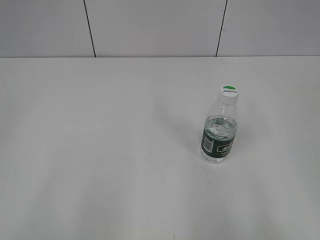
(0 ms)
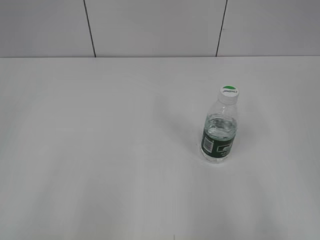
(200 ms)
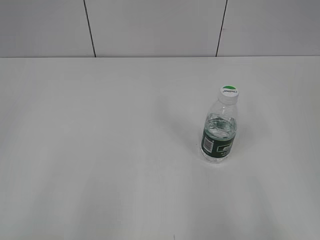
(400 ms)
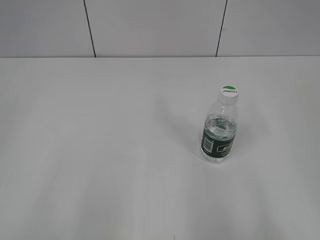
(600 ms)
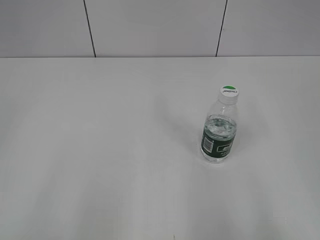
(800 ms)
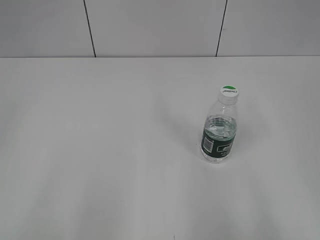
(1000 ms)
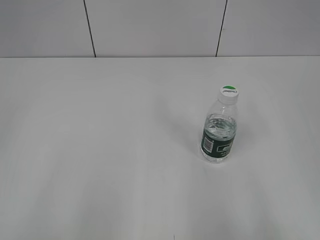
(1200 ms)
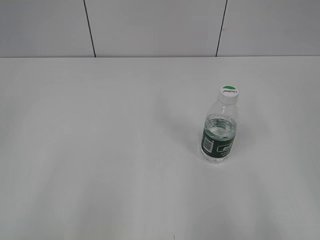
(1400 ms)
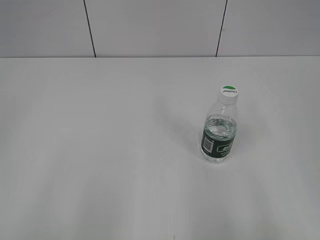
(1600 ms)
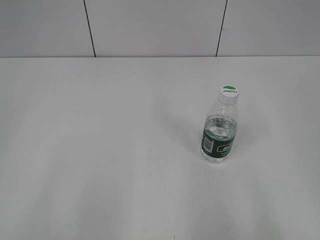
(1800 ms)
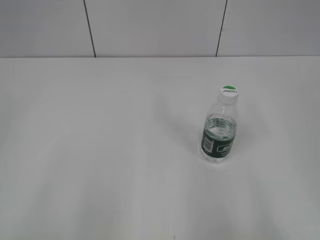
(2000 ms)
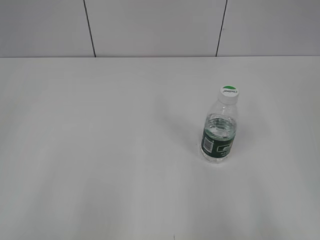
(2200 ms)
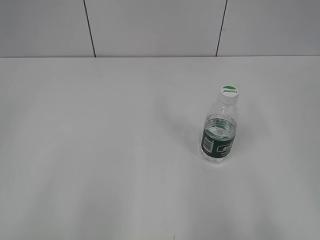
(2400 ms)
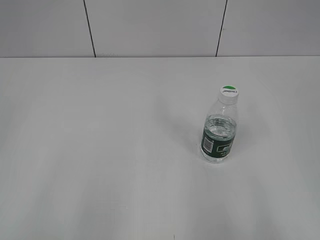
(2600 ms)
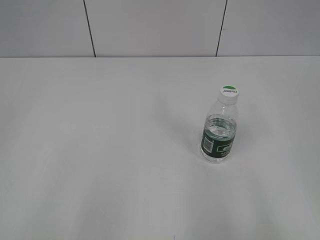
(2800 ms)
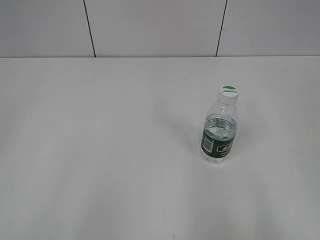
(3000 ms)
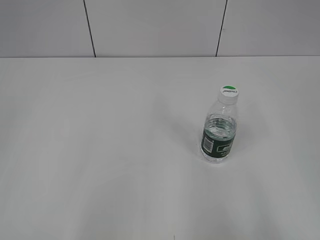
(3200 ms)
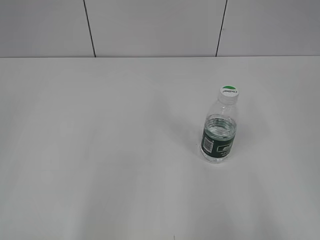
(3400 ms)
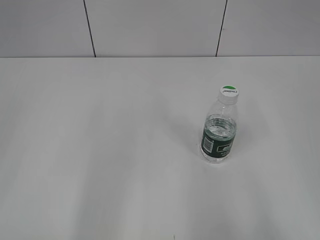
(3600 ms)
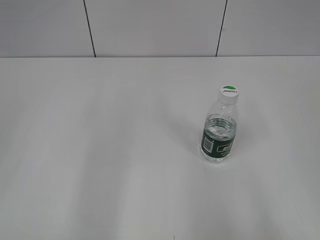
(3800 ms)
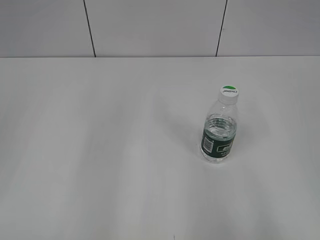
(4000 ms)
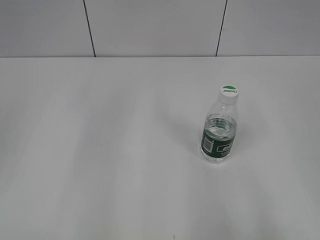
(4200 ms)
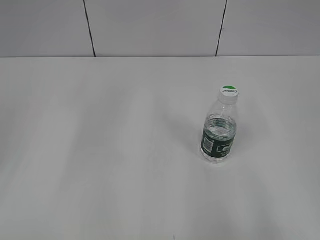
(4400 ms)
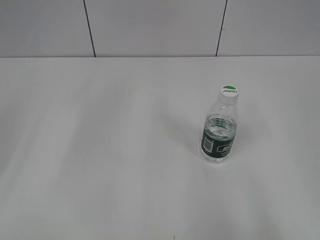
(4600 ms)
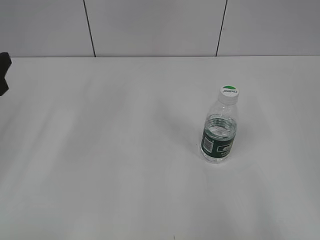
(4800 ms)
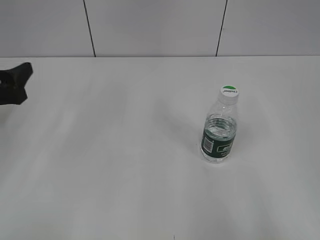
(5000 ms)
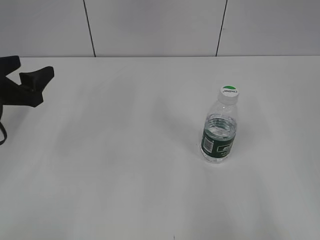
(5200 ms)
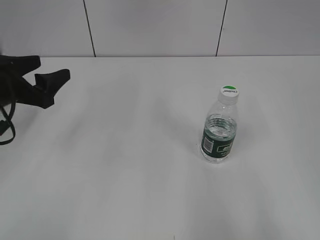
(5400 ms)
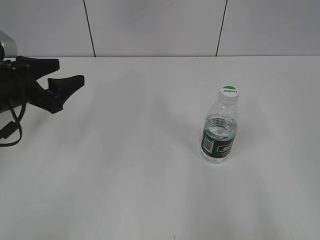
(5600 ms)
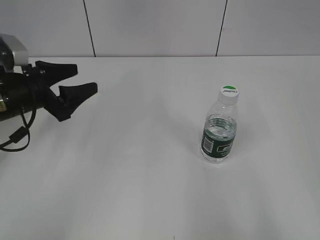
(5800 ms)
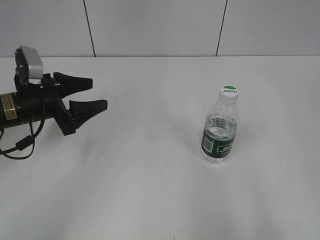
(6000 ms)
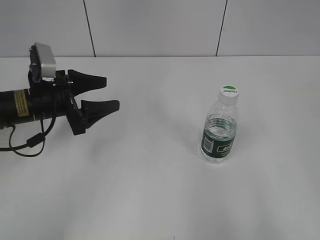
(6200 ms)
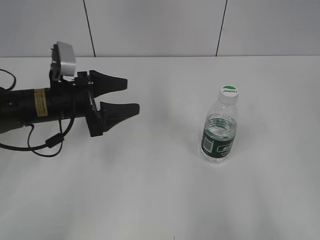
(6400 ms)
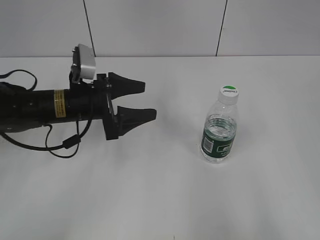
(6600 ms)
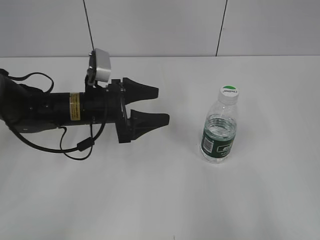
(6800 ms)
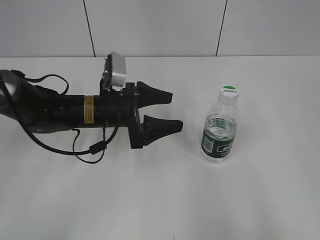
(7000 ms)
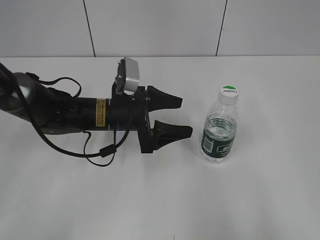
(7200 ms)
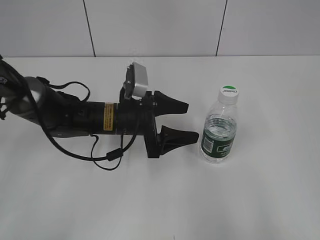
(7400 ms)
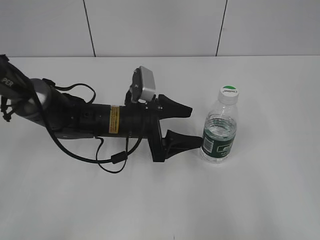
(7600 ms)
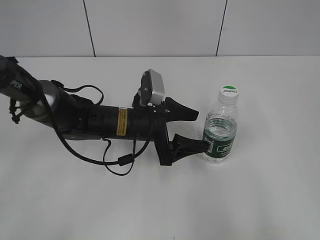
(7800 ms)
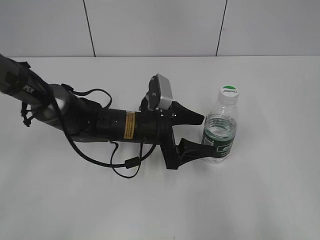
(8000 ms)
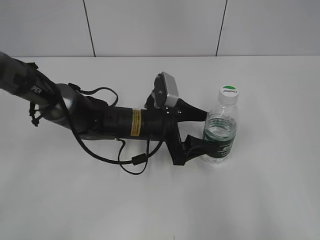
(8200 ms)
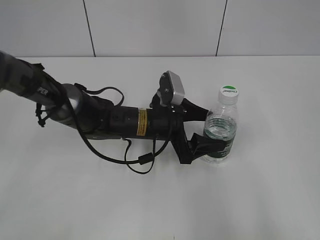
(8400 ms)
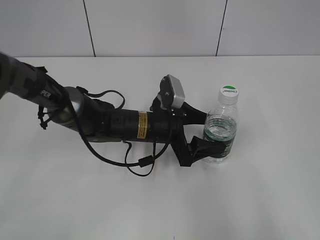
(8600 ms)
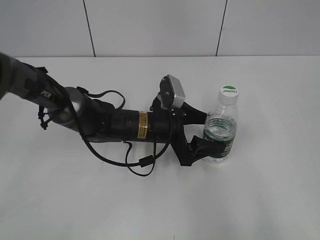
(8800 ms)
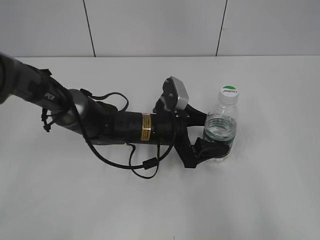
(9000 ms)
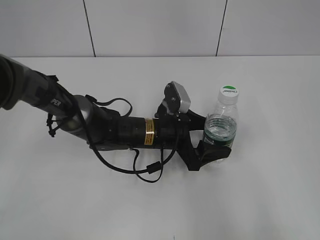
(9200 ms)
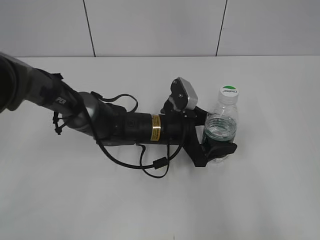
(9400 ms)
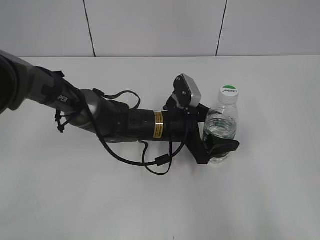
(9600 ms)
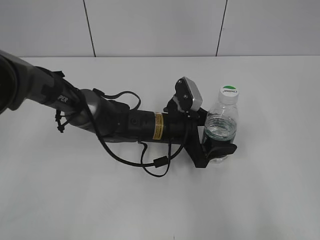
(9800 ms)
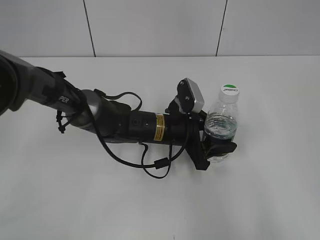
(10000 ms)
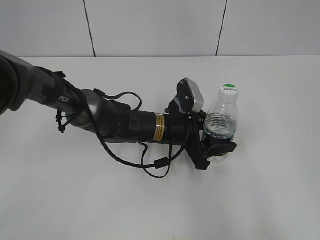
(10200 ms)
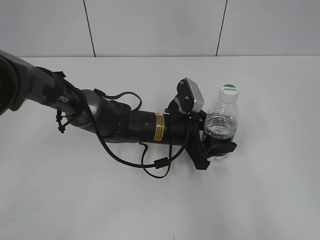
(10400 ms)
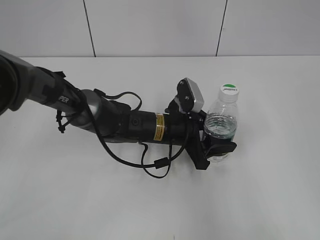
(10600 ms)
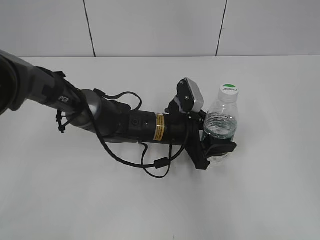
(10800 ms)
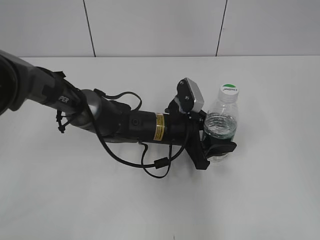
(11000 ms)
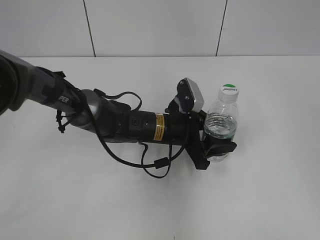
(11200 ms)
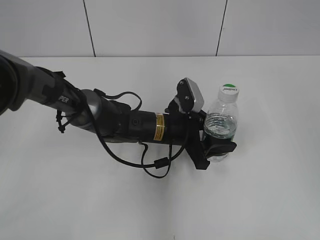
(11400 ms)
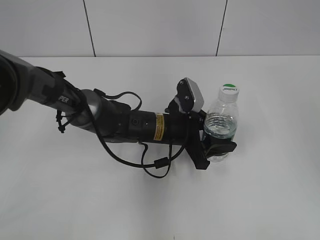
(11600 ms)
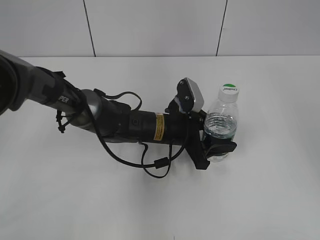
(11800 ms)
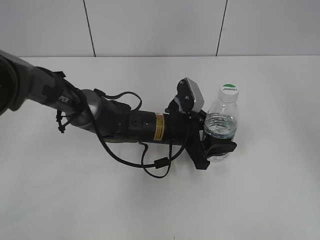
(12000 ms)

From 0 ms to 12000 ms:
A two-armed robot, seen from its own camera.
Step, from 0 ms to 10600 ms: Grasp the bottle and move it to the center of the table with the left gripper.
From 4400 ms to 6000 ms: The left gripper travels forward, downward and to the right by some 20 cm.
From 6000 ms to 7600 ms: The left gripper shifts some 15 cm to the right.
From 7600 ms to 9000 ms: The left gripper goes some 5 cm to the right.
From 9000 ms to 10400 ms: The left gripper closes.
From 10400 ms to 12000 ms: The right gripper travels forward and upward by some 30 cm.

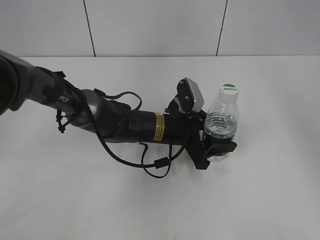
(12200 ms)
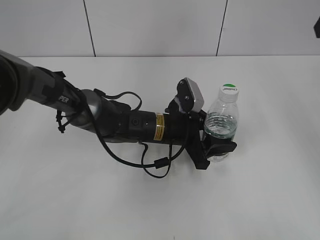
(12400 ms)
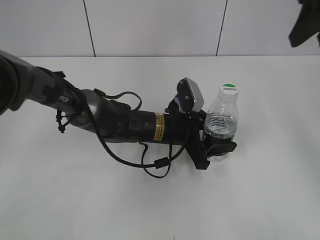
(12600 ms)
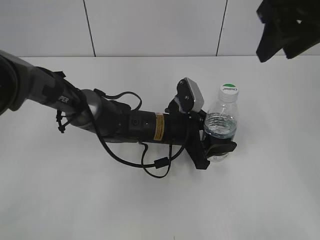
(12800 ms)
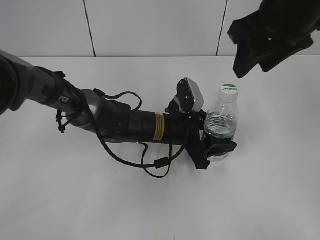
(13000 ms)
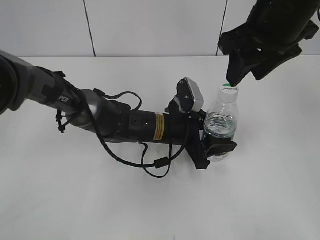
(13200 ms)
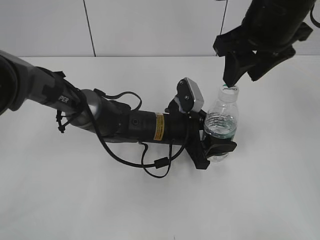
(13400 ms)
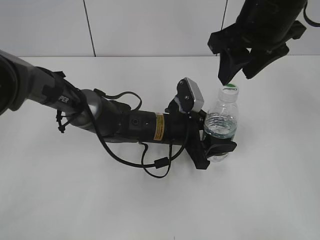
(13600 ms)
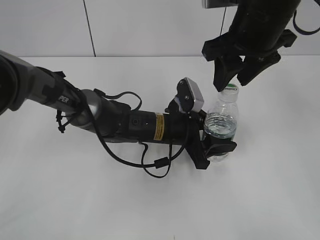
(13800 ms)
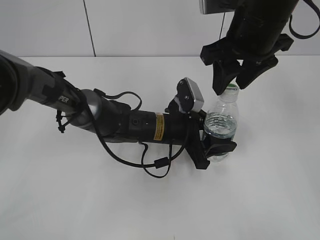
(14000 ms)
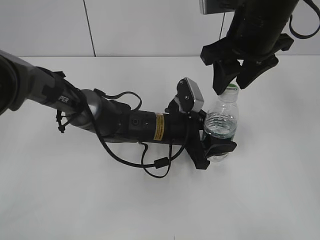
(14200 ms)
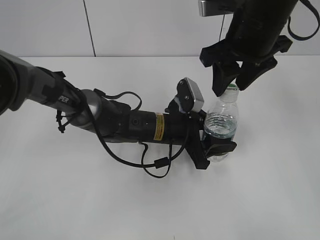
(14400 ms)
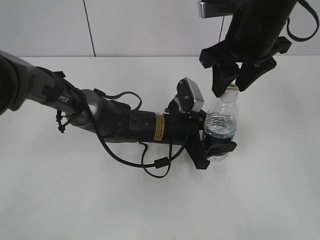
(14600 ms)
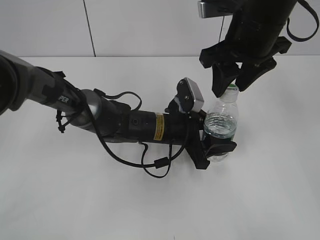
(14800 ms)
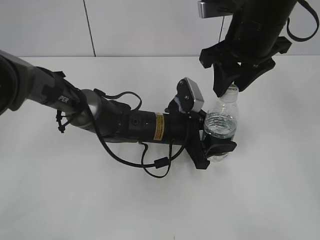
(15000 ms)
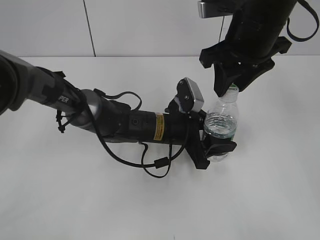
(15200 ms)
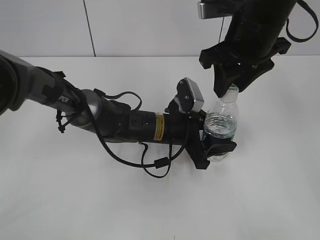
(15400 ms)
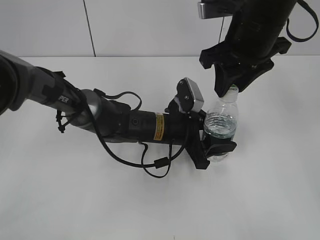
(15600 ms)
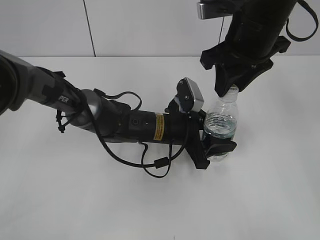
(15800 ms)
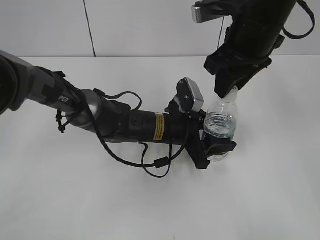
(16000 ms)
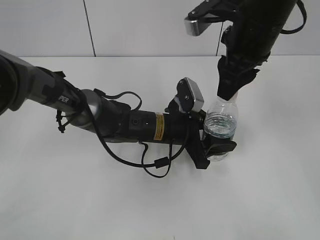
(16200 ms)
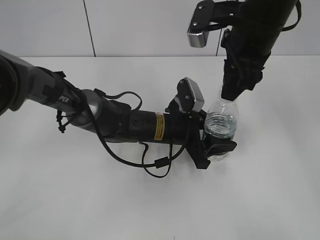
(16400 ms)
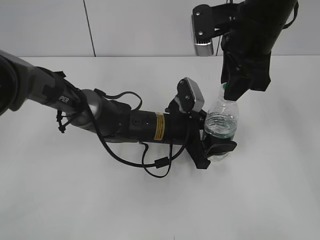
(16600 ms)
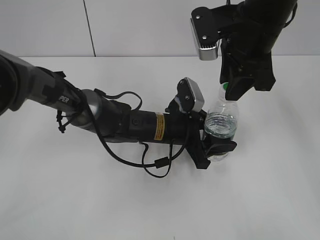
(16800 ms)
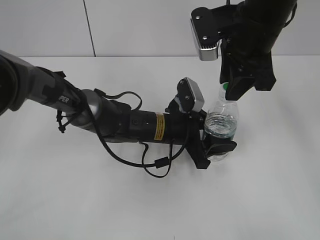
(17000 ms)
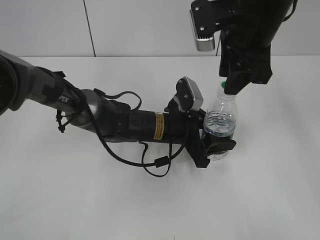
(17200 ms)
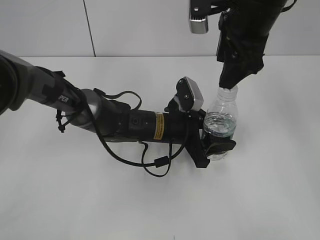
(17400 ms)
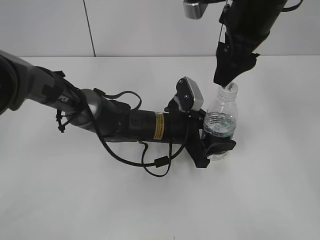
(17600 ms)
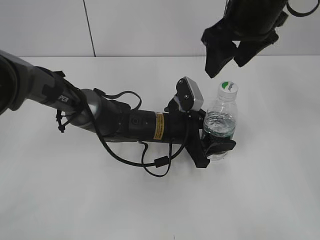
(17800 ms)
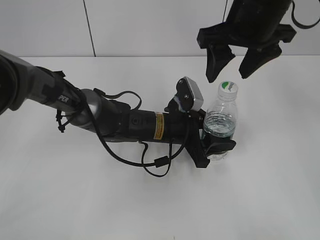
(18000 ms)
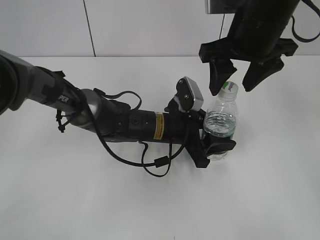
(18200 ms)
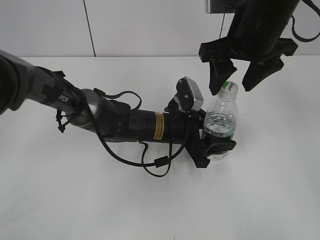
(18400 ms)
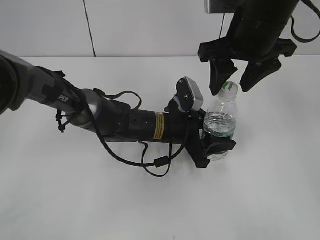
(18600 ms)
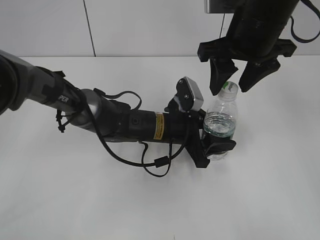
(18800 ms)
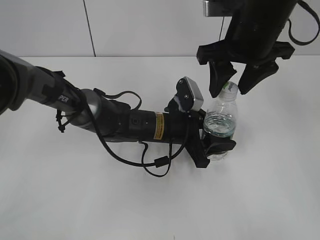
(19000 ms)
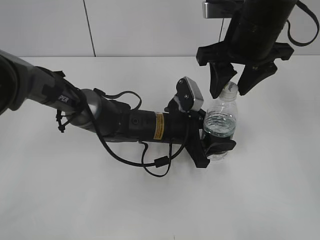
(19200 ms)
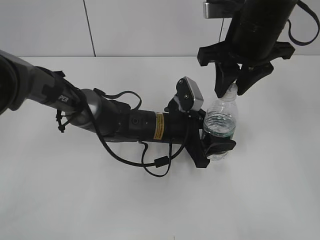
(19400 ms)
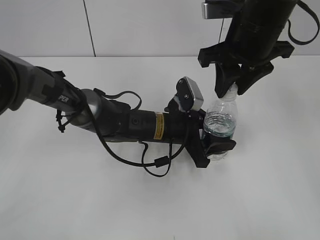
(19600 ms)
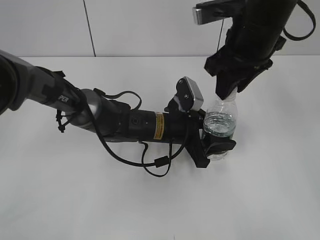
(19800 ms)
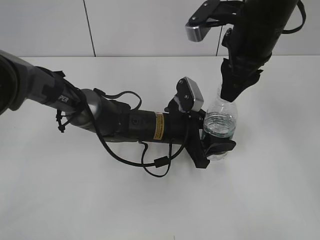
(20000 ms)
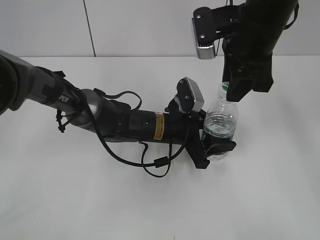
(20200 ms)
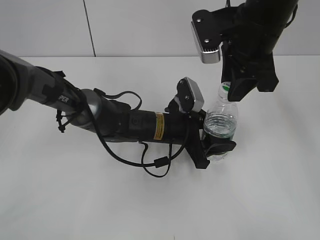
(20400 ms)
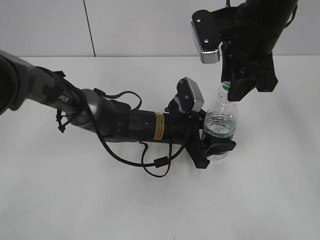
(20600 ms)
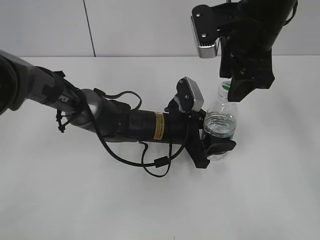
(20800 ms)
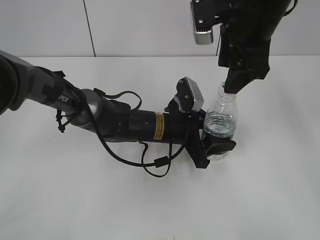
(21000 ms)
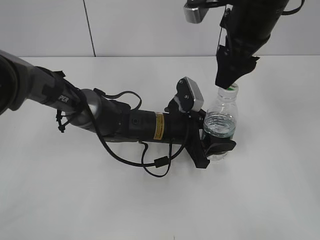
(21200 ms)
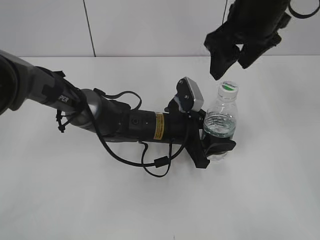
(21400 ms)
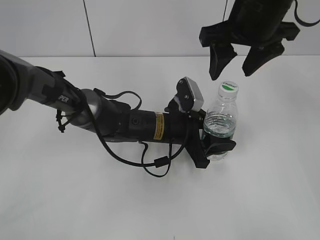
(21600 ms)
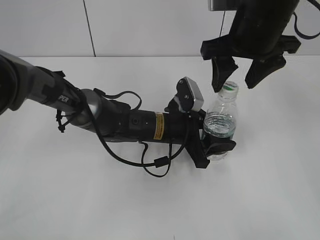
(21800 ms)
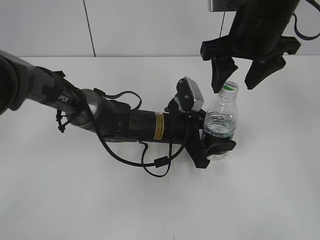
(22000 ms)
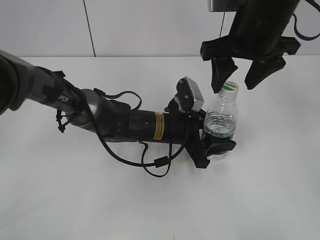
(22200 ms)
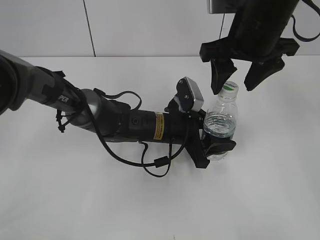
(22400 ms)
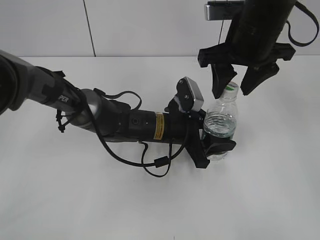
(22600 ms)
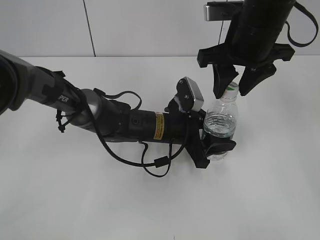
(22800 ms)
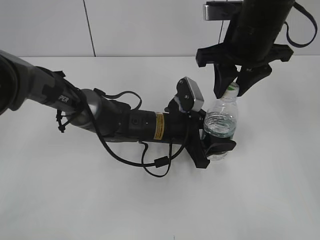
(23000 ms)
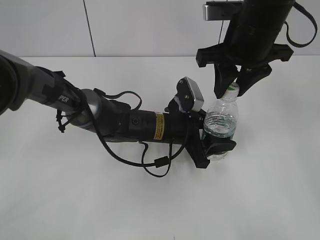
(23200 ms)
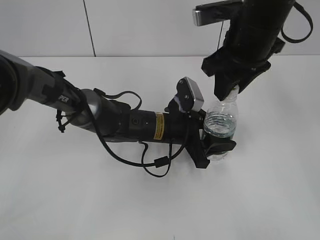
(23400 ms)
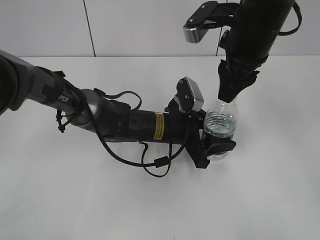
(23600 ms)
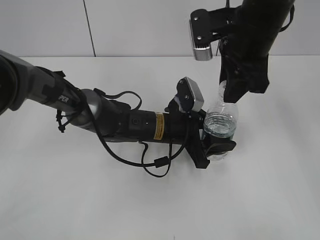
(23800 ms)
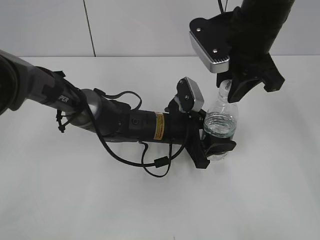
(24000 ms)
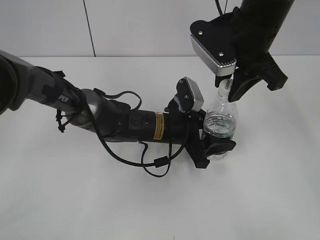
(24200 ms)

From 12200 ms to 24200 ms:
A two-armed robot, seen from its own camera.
From 12200 ms to 13800 ms: The right gripper shifts about 15 cm to the left and downward.
From 13800 ms to 15200 ms: Both grippers stay put.
From 16600 ms to 18200 ms: The right gripper opens its fingers.
From 18200 ms to 19800 ms: The right gripper closes up.
From 19800 ms to 21200 ms: The right gripper opens its fingers.
From 22600 ms to 24200 ms: The right gripper closes its fingers.
